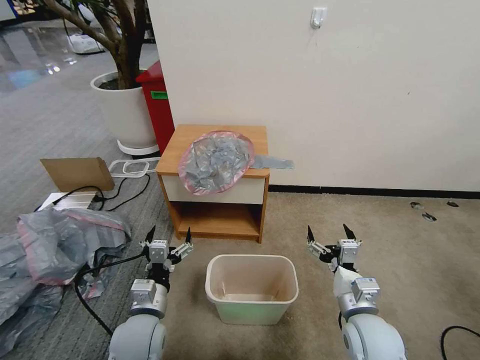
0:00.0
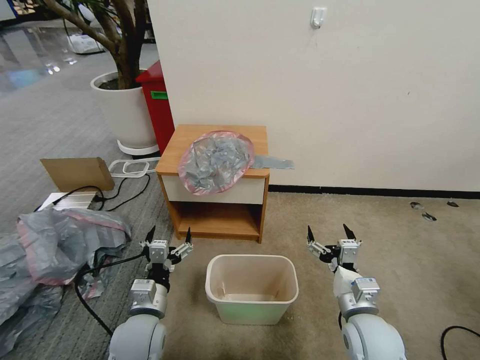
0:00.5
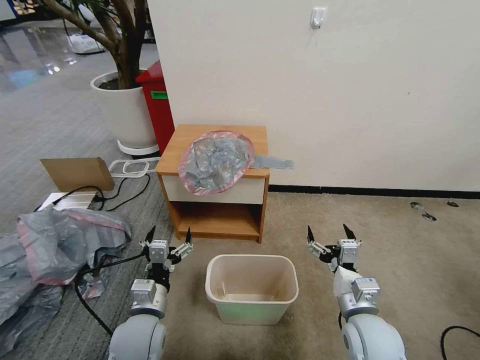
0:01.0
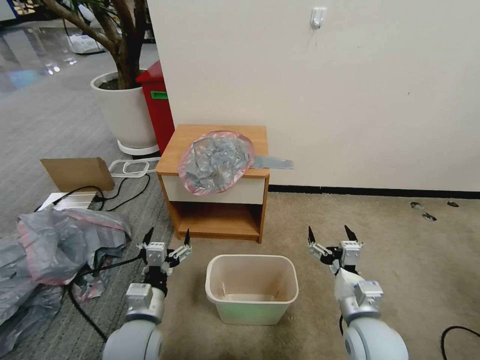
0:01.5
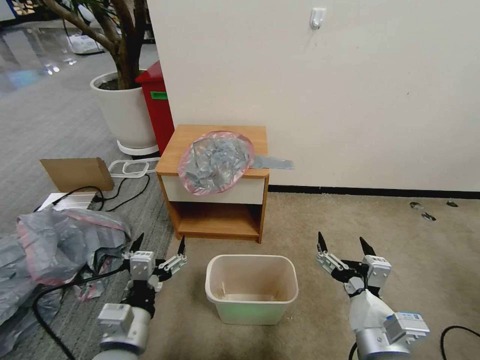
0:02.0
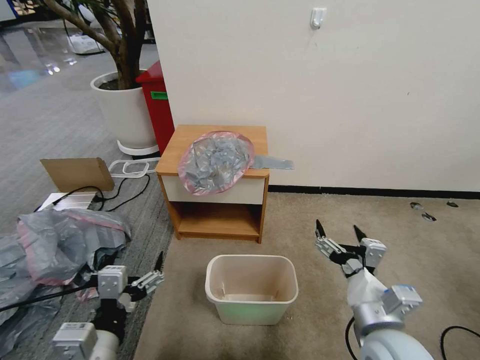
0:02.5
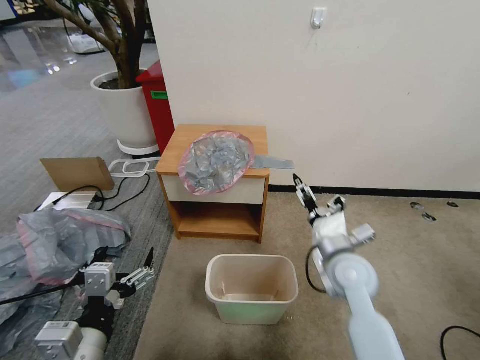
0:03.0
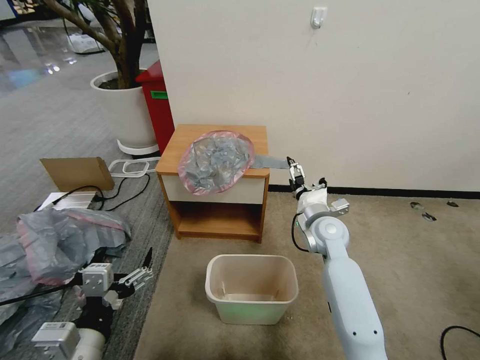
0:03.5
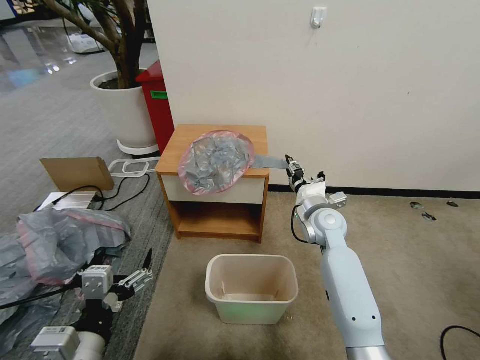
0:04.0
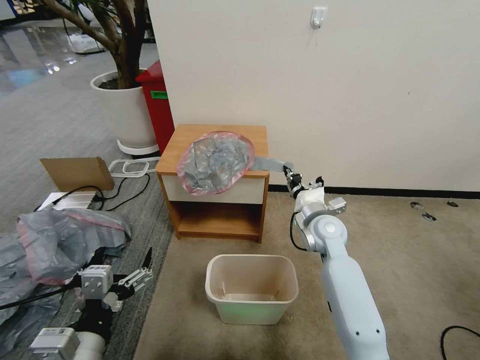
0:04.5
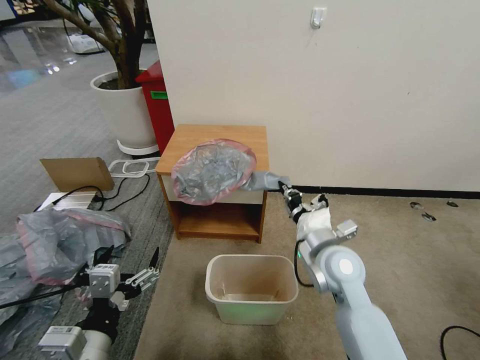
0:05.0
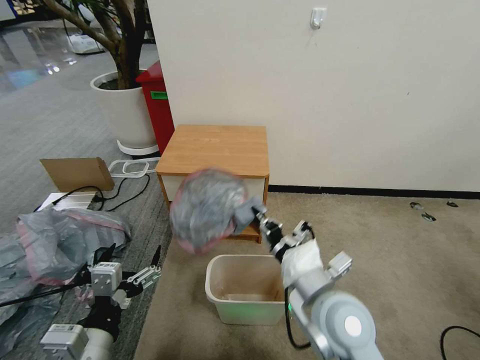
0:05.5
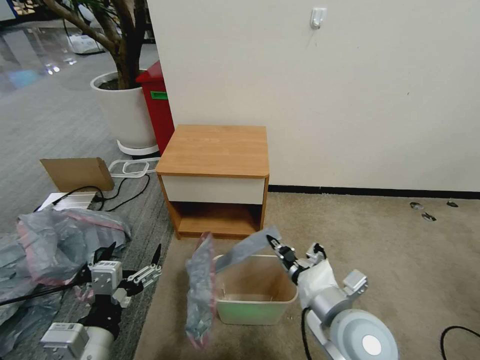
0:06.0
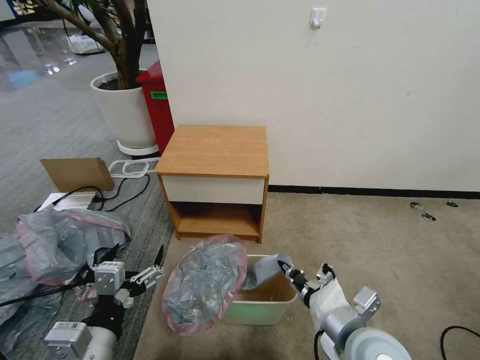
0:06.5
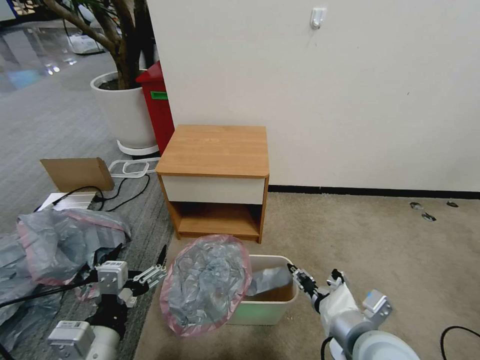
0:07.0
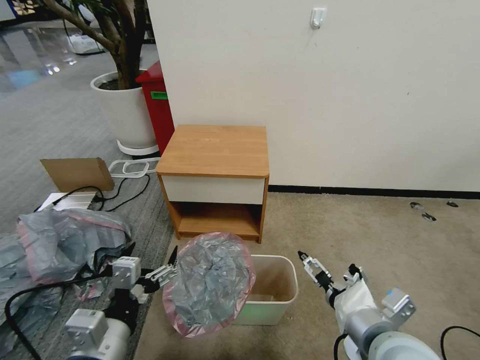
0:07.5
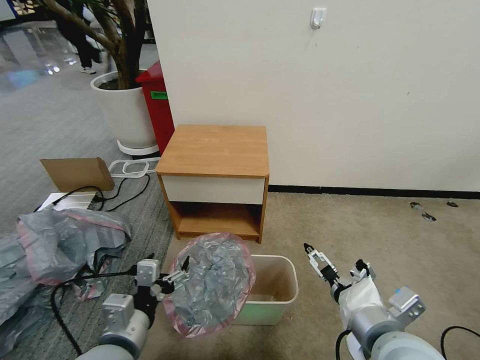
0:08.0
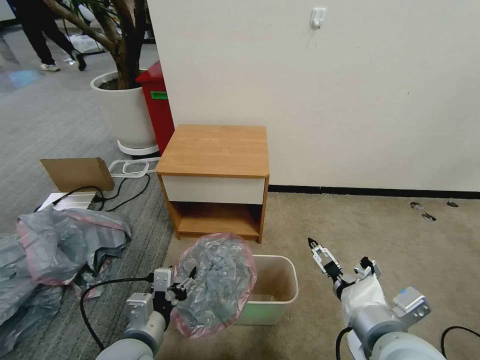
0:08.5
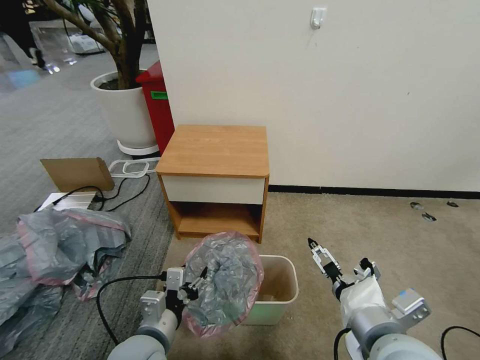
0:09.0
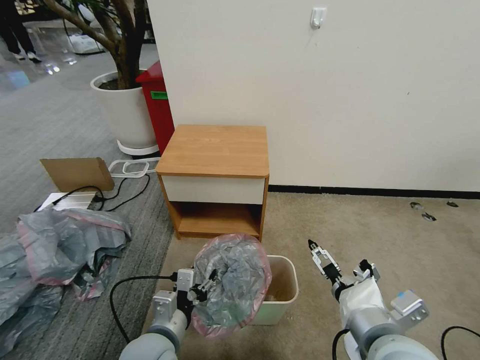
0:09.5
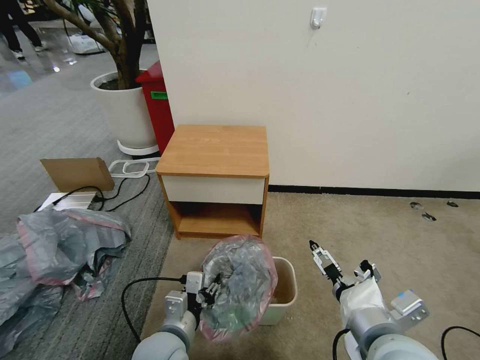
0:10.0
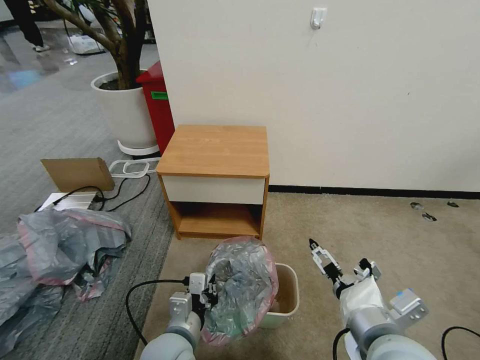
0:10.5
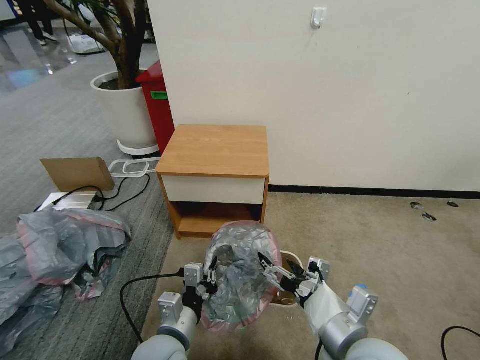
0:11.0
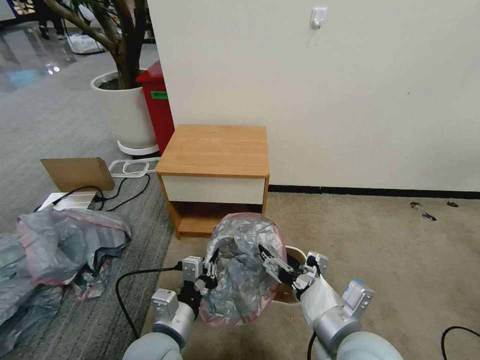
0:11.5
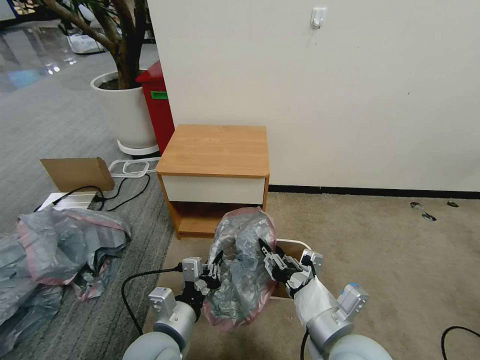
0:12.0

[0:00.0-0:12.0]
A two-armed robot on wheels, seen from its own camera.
Task of the whole recording: Pick up the garbage bag from the table and place it over the trash can.
0:02.0 to 0:04.0: The right gripper moves forward, approximately 30 cm, and closes its fingers. The left gripper shifts by approximately 5 cm.
0:04.0 to 0:06.0: The right gripper moves backward, some 25 cm, and closes.
0:06.0 to 0:08.0: The right gripper changes place by about 5 cm, and opens its fingers. The left gripper changes place by roughly 5 cm.
0:08.0 to 0:10.0: The left gripper travels downward and to the right by approximately 10 cm, and closes its fingers.
0:10.0 to 0:12.0: The right gripper shifts by roughly 5 cm, and closes. Meanwhile the left gripper closes its fingers.

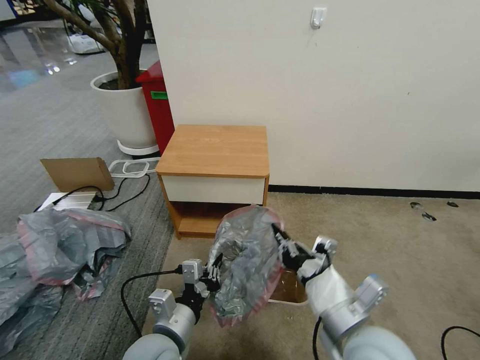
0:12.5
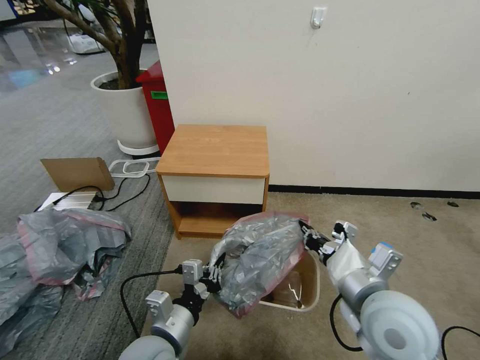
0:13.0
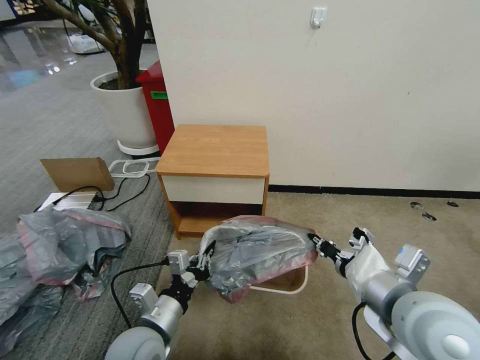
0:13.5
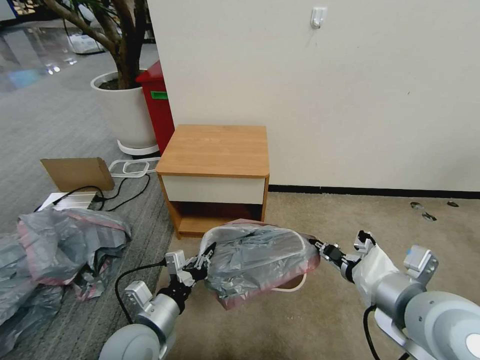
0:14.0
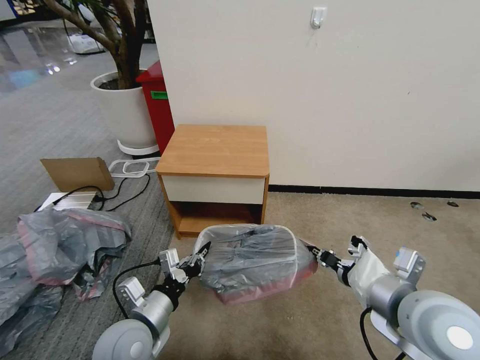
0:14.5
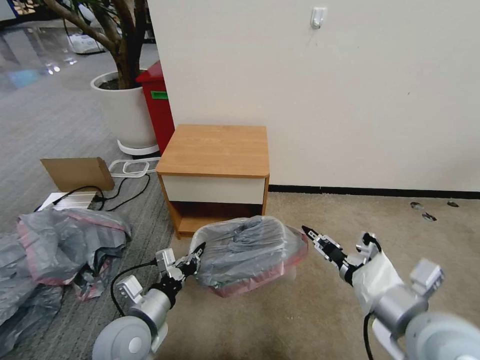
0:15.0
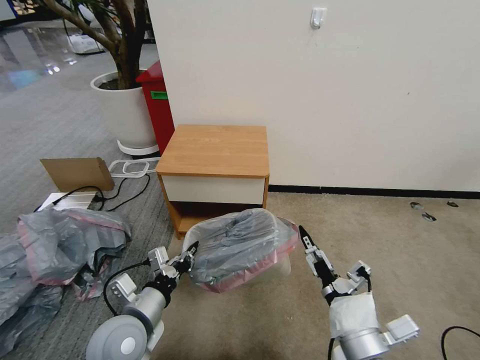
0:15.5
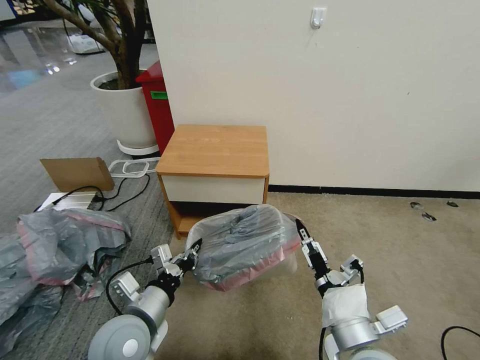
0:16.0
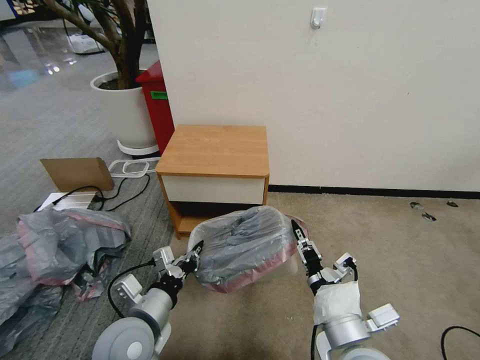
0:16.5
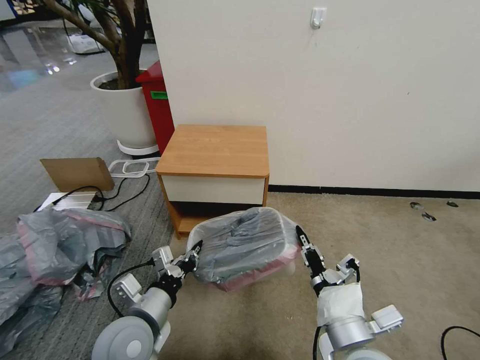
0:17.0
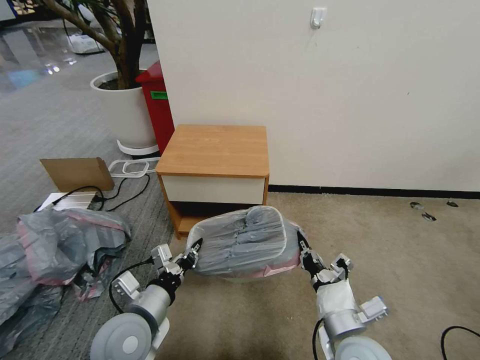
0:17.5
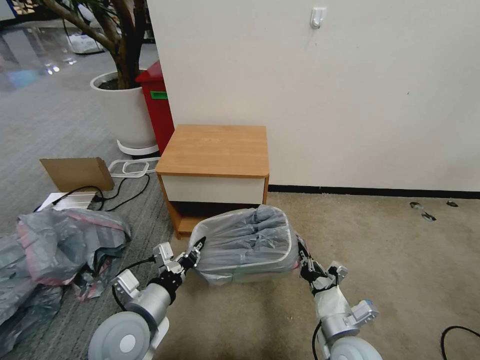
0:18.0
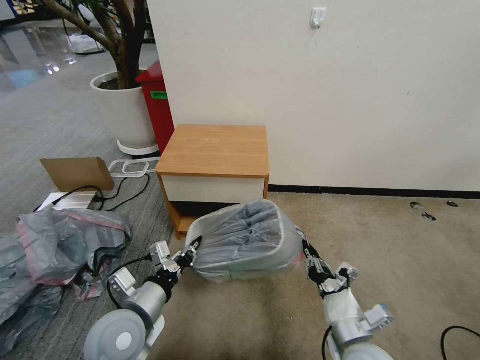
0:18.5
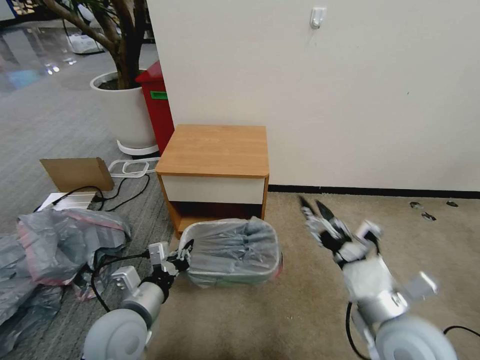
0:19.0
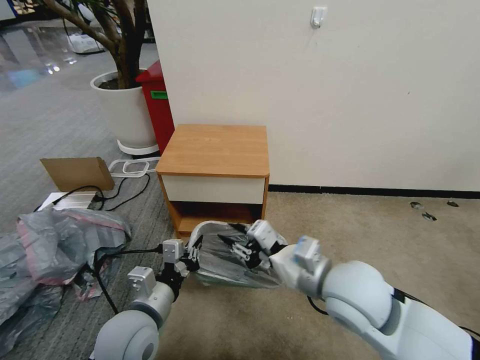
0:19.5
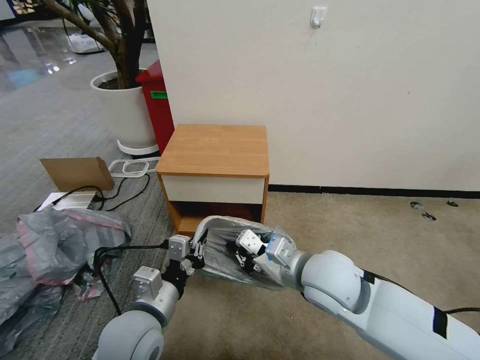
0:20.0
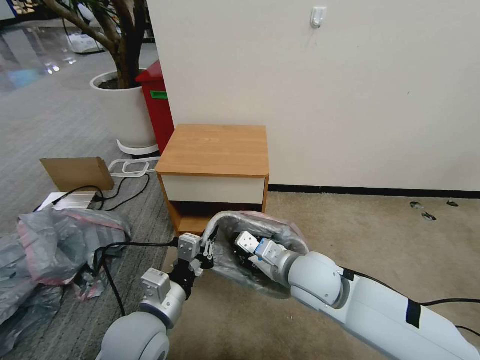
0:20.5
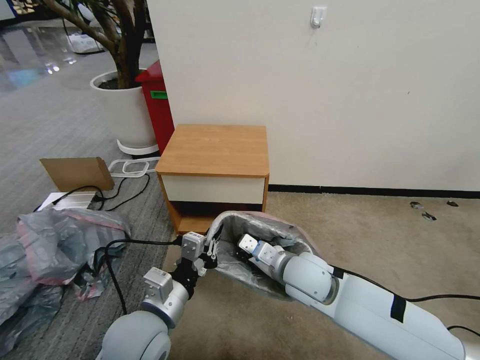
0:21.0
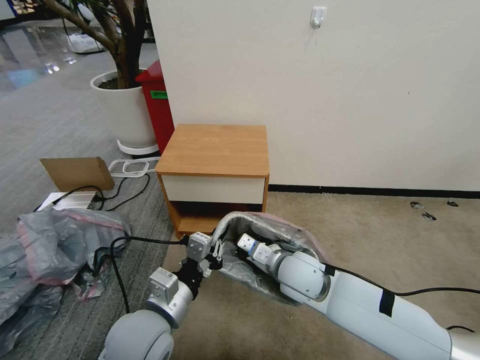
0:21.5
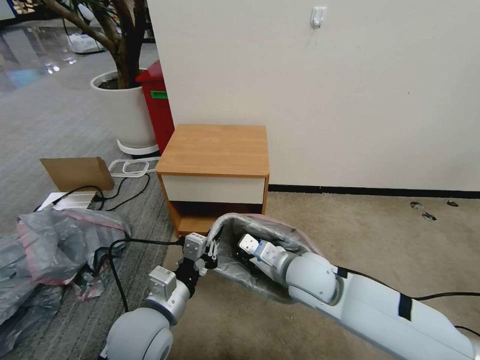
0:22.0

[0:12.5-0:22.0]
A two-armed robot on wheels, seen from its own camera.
Task of the whole recording: Pick up the garbage bag from the table and place it over the trash can.
0:12.5 to 0:14.5: The right gripper travels to the right by approximately 10 cm. Meanwhile the left gripper heads to the left, covering roughly 5 cm.
0:14.5 to 0:16.5: The right gripper moves to the left, downward and backward, about 15 cm, and opens and closes again.
0:16.5 to 0:18.0: The right gripper goes approximately 10 cm downward.
0:18.0 to 0:20.0: The right gripper heads upward, forward and to the left, covering about 20 cm, and opens, then closes again.
0:20.0 to 0:22.0: The right gripper is displaced downward by roughly 5 cm.

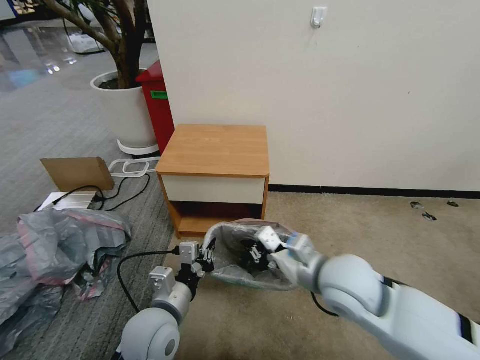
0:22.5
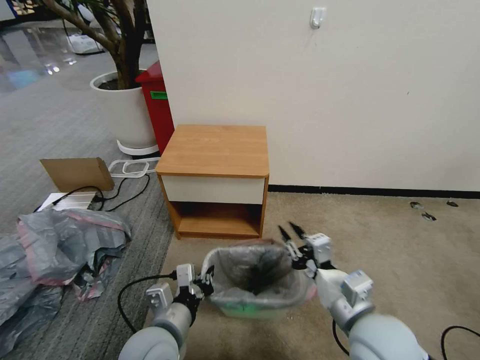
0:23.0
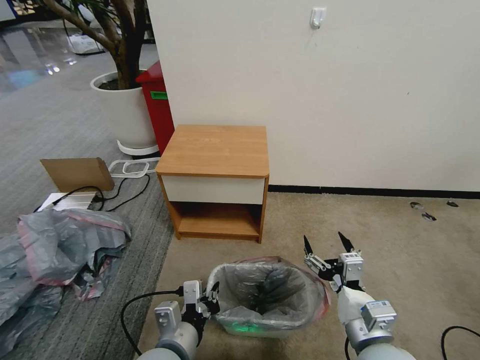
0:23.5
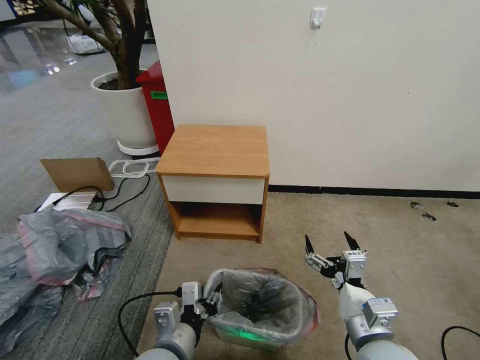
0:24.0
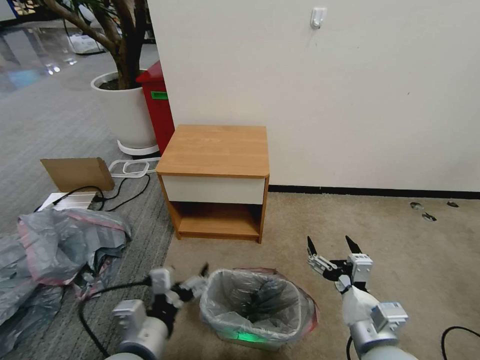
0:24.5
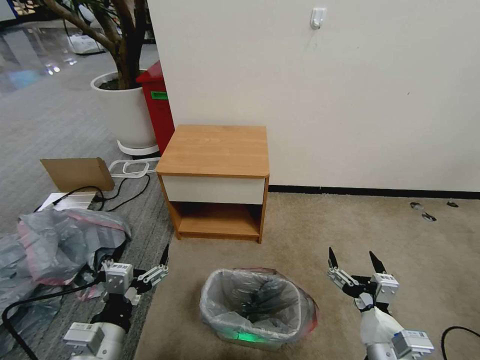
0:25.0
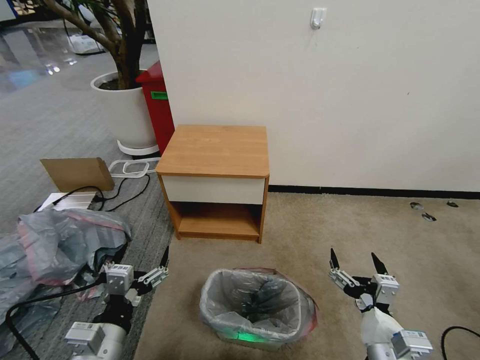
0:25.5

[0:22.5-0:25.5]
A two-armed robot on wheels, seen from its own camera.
Task of the whole recording: Pick up the garbage bag from the table and place it over the trash can.
0:22.5 to 0:24.0: The right gripper goes roughly 15 cm backward and downward, and opens its fingers. The left gripper is displaced backward by about 5 cm, and opens up.
0:24.0 to 0:25.5: The left gripper goes approximately 10 cm to the left, and opens its fingers. The right gripper ends up approximately 5 cm from where it was.
